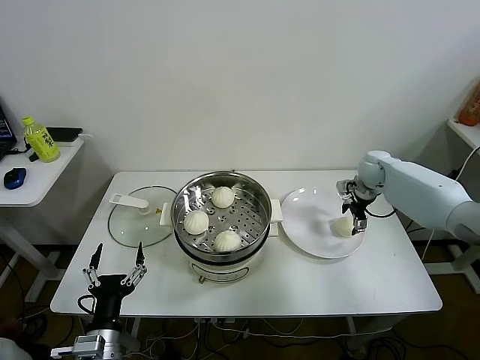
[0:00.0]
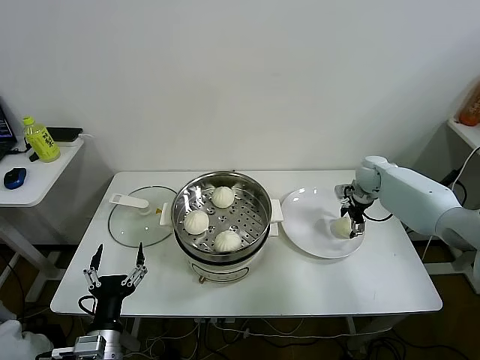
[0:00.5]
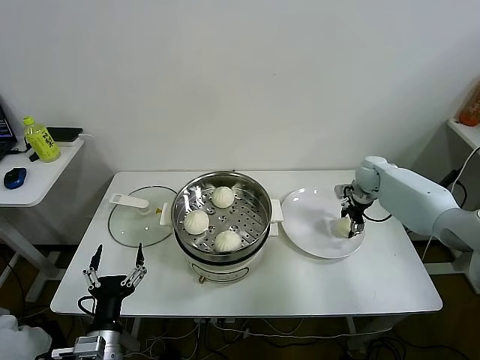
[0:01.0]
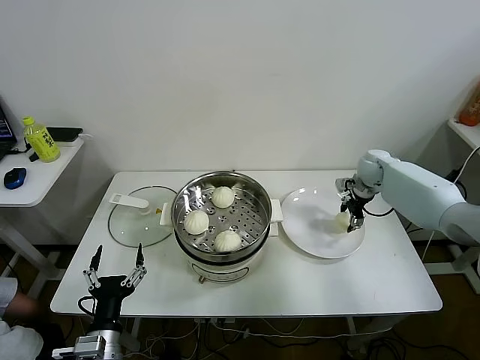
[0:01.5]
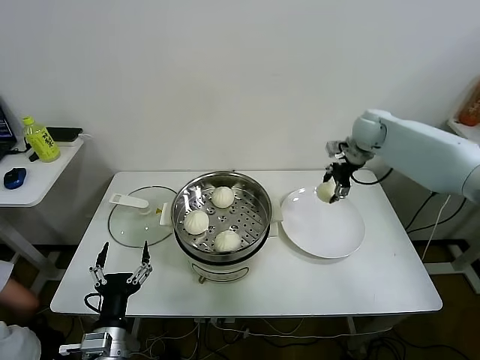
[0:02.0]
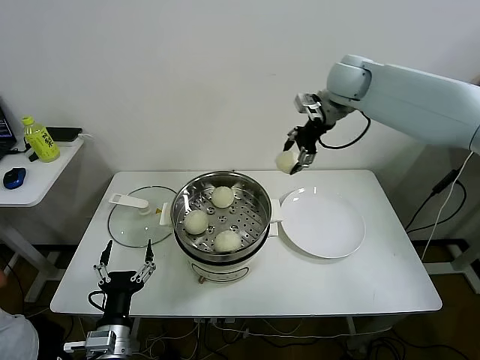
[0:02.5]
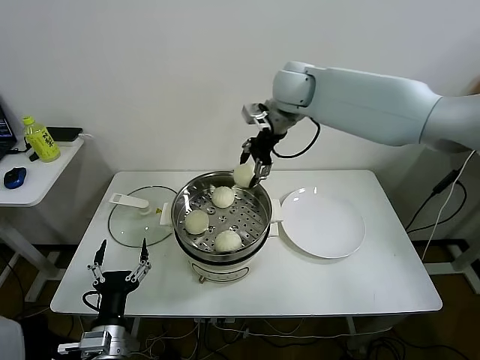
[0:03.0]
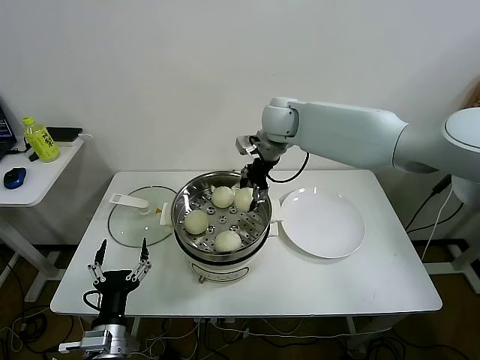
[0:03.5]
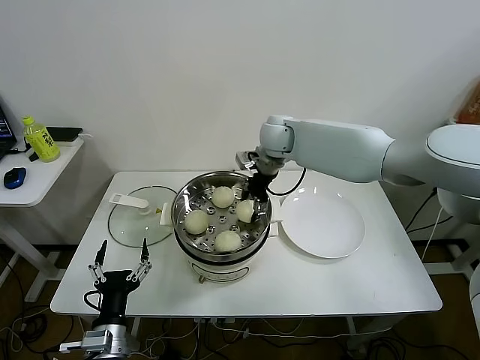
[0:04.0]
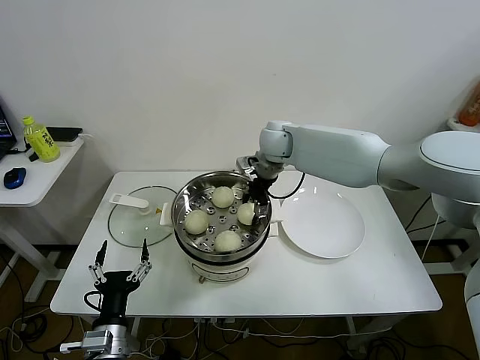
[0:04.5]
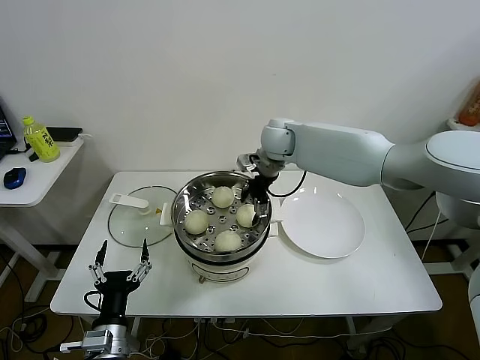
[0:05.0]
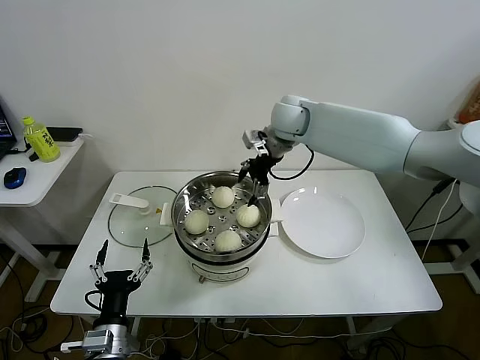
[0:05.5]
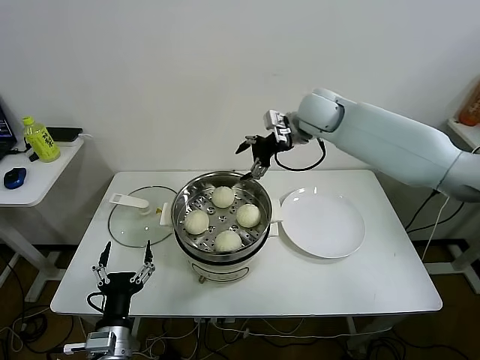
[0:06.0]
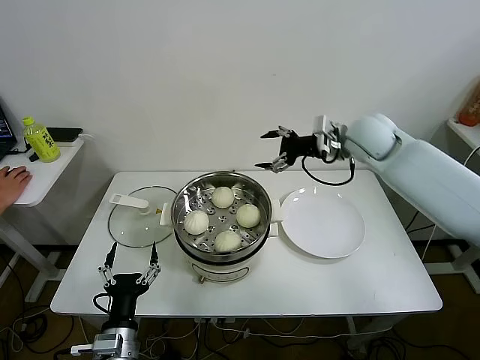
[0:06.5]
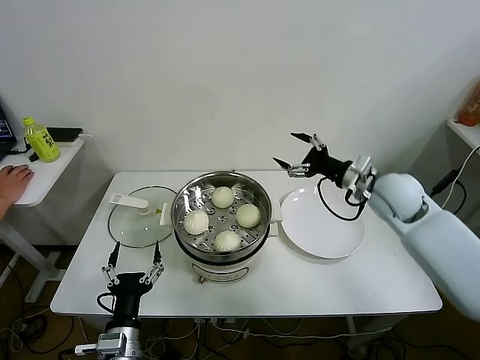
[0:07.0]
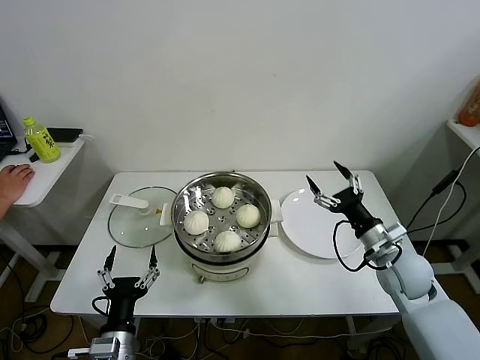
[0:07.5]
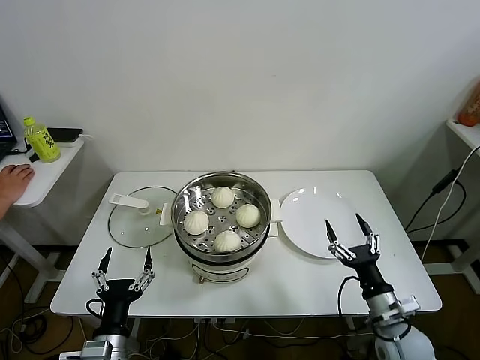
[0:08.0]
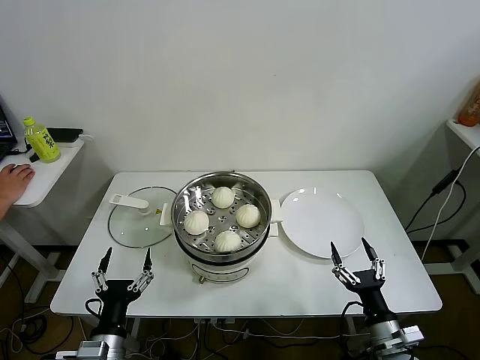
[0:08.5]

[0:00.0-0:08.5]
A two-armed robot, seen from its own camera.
Task of the whole recording: take steamed baozi put them in steamer.
Step, 0:01.5 to 0:05.0: Place the baozi on the steamer with right gripper.
0:00.0 to 0:02.0: The right gripper shifts about 10 cm upward, and closes.
0:02.0 to 0:04.0: The right gripper travels to the left by some 25 cm.
0:04.0 to 0:06.5: The right gripper heads to the right, covering some 15 cm, and opens.
0:06.5 to 0:08.5: The right gripper heads backward and downward, covering about 50 cm.

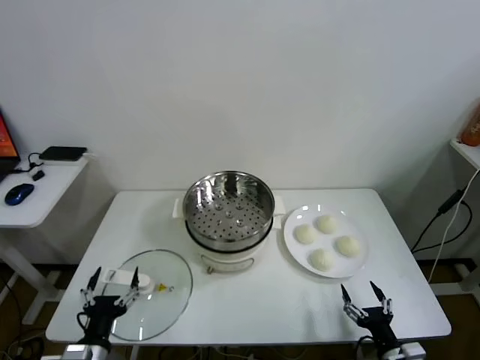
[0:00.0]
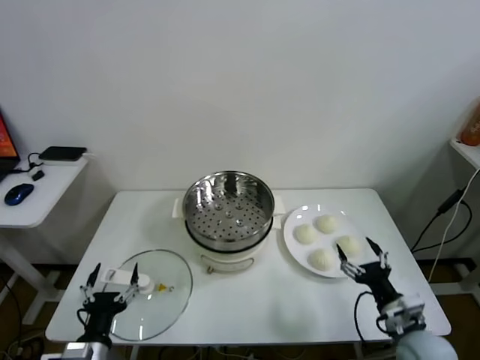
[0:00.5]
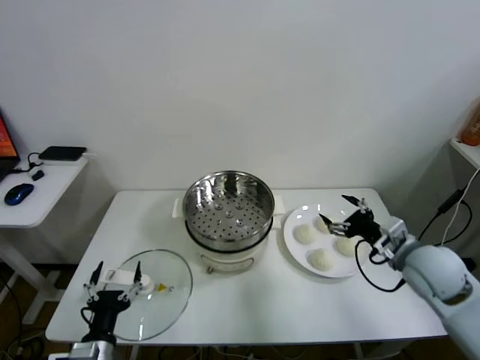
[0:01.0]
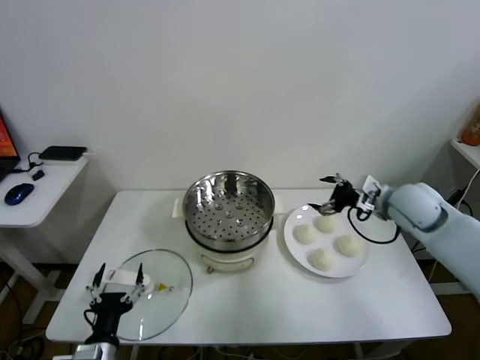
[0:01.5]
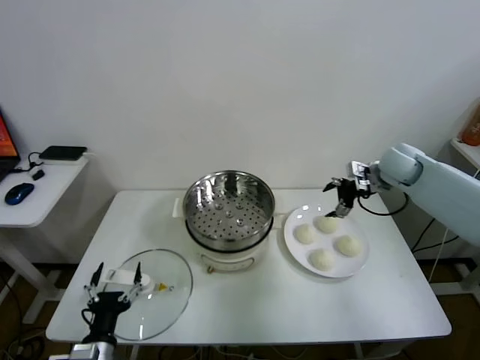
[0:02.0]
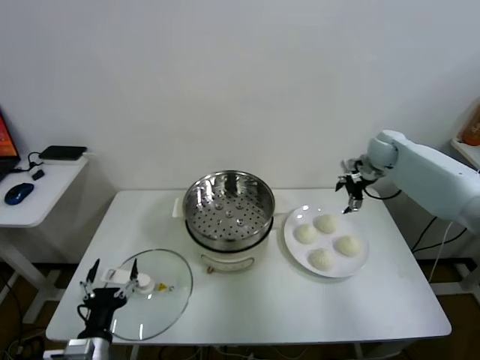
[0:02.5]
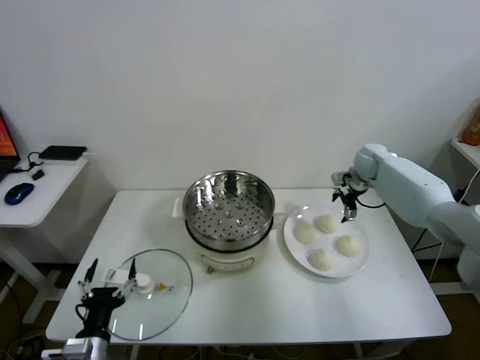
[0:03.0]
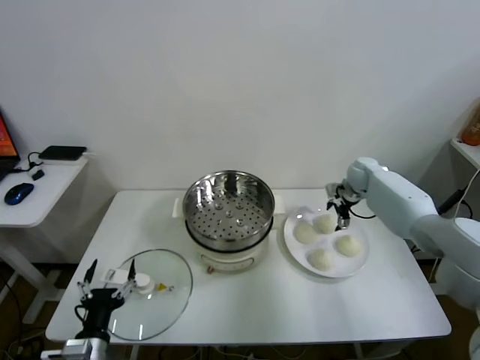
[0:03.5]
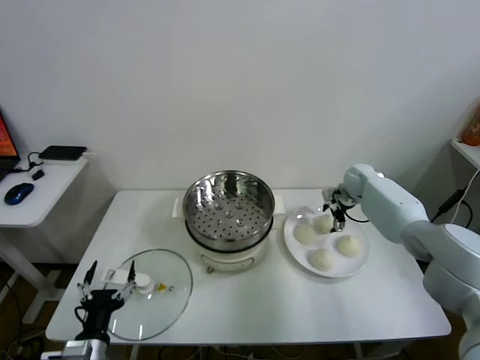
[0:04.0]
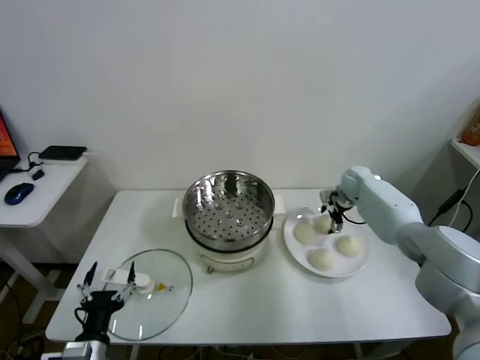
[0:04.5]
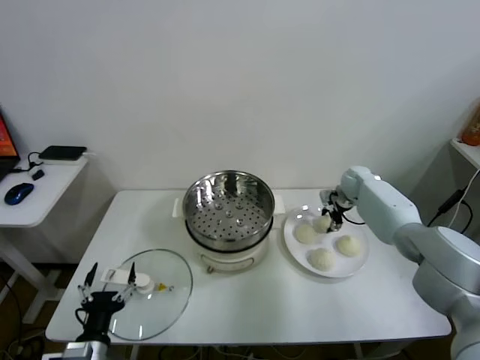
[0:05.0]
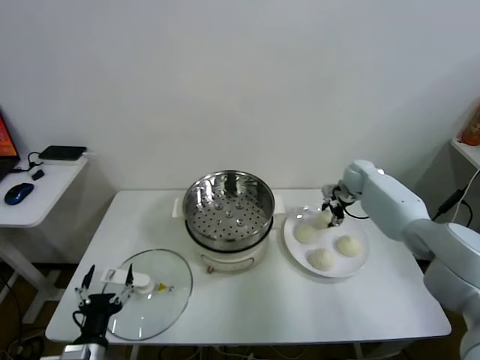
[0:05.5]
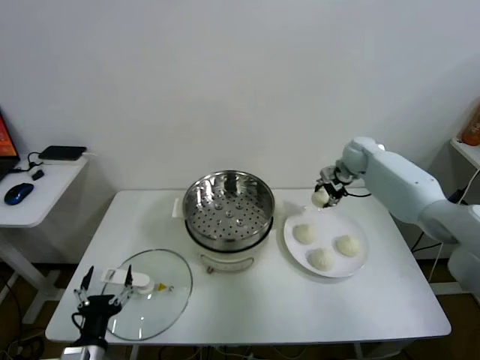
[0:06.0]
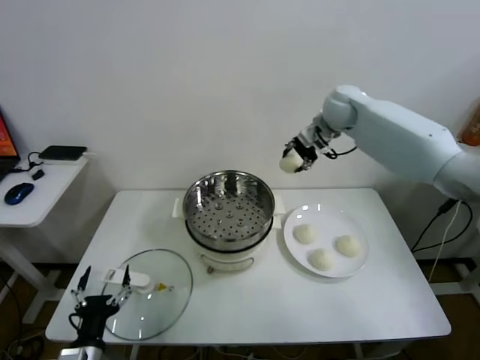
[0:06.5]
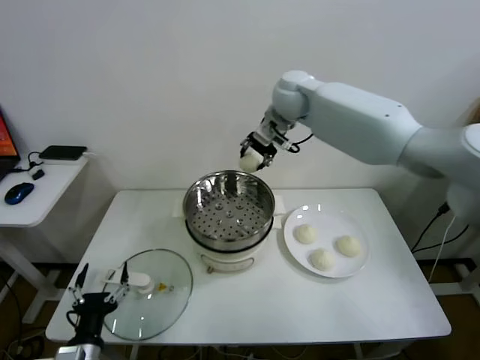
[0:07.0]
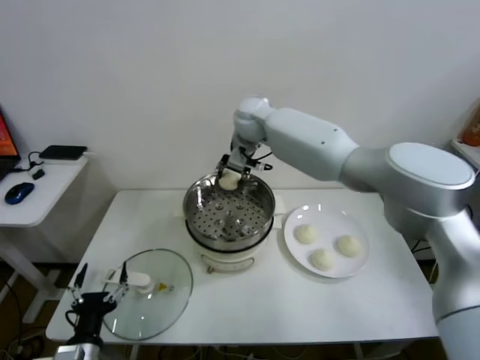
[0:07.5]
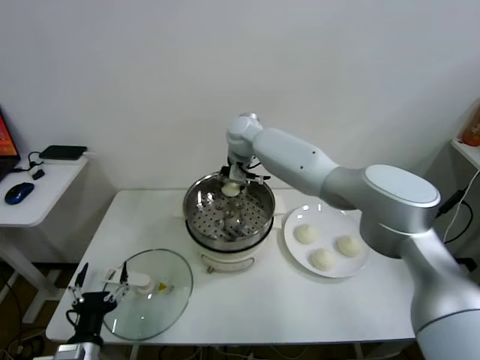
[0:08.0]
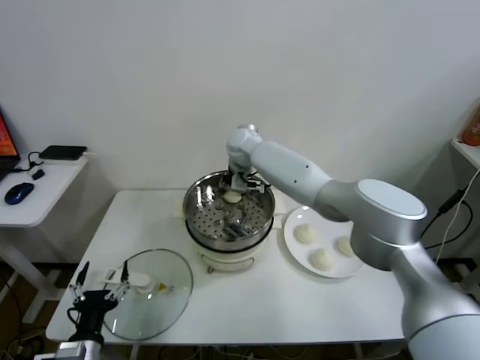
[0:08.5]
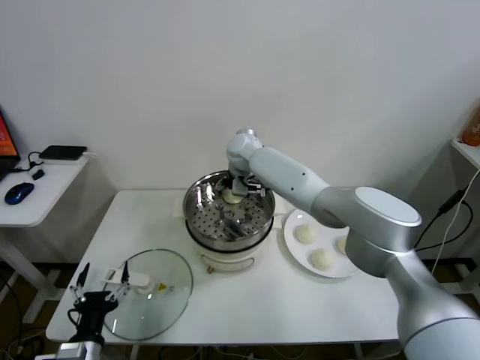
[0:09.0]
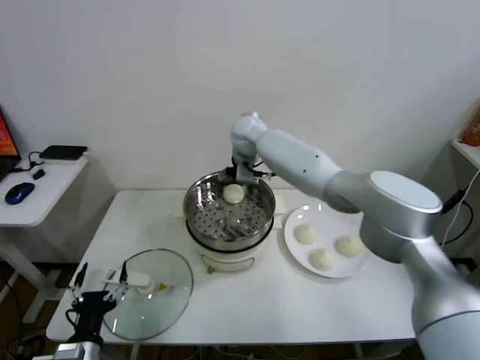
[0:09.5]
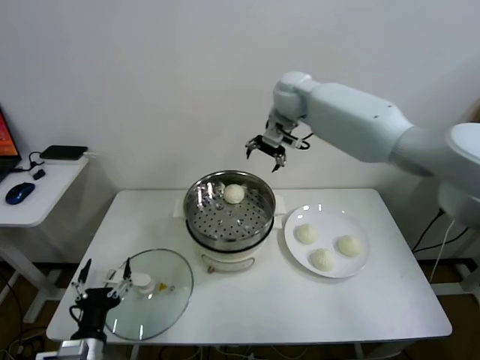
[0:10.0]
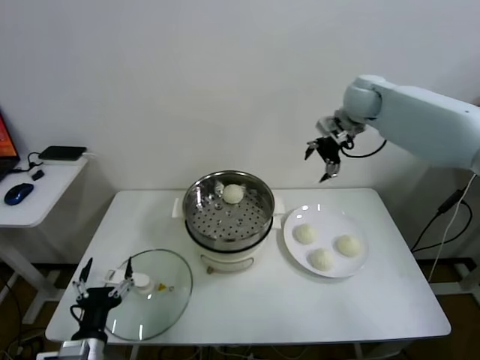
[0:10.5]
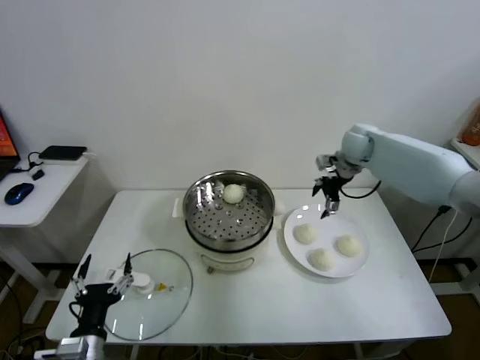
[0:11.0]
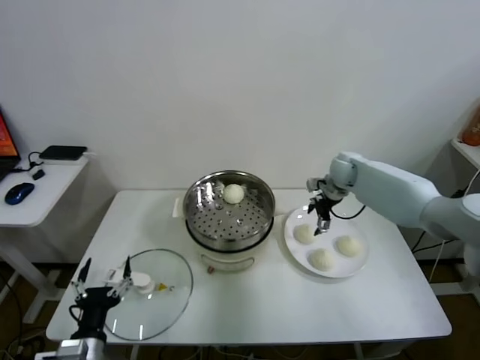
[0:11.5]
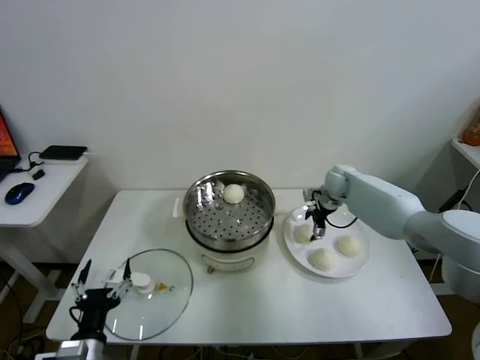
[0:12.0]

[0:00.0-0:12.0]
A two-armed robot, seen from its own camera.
Task of the whole recording: take steamed baozi put them in steamer.
Step, 0:00.0 to 0:05.0: Grasp the baozi in the plate with right gripper.
Step, 0:05.5 to 0:09.0: Place the baozi on the steamer with right gripper.
0:02.0 to 0:04.0: The right gripper is displaced downward and forward by some 15 cm.
0:04.0 to 0:06.0: The right gripper goes some 10 cm upward, and closes its fingers.
0:06.0 to 0:08.0: The right gripper goes approximately 30 cm to the left.
0:08.0 to 0:10.0: The right gripper heads to the right and upward, covering approximately 15 cm, and opens its fingers.
0:10.0 to 0:12.0: The right gripper is displaced downward and to the right by some 30 cm.

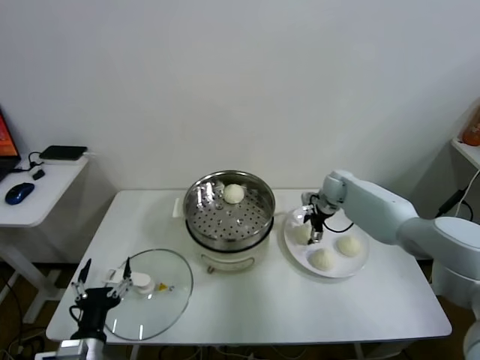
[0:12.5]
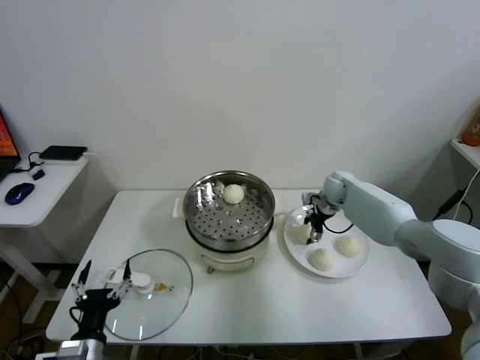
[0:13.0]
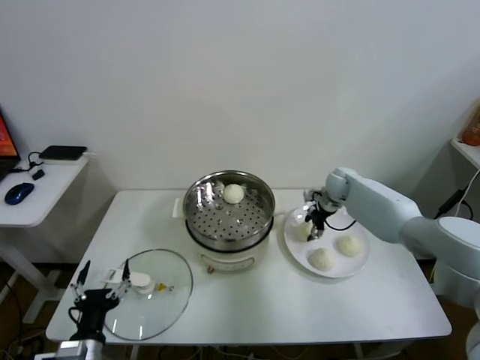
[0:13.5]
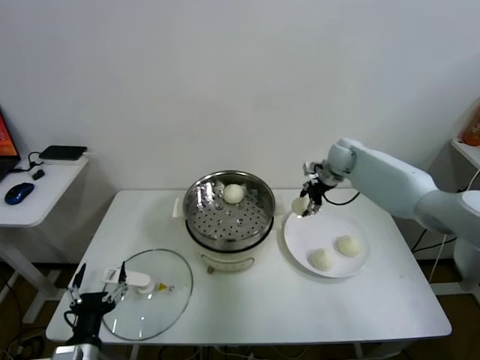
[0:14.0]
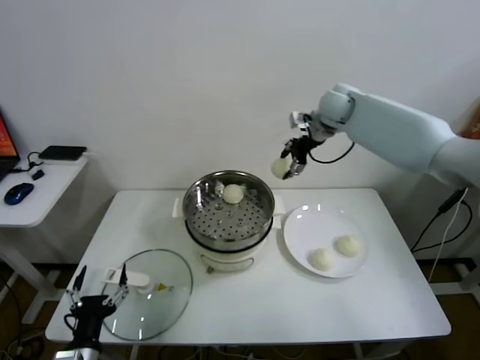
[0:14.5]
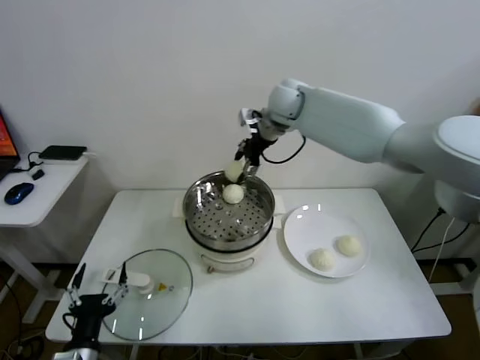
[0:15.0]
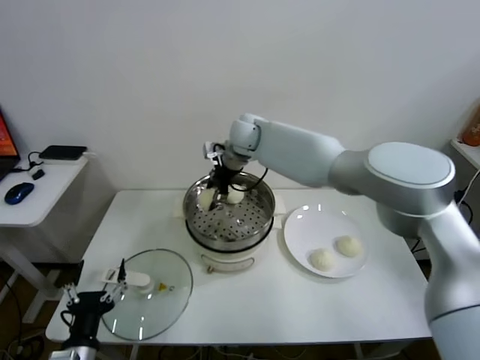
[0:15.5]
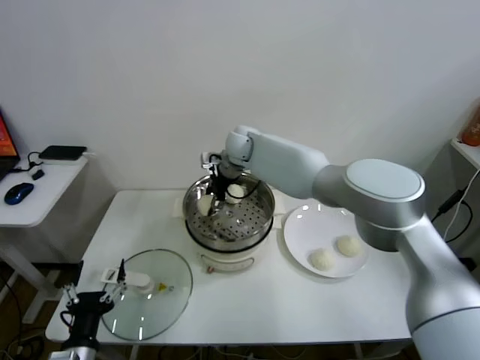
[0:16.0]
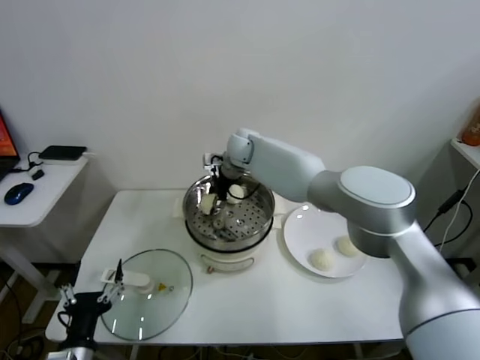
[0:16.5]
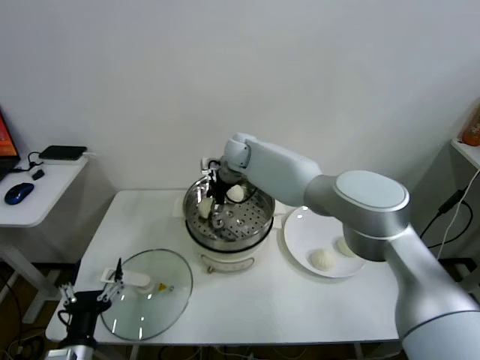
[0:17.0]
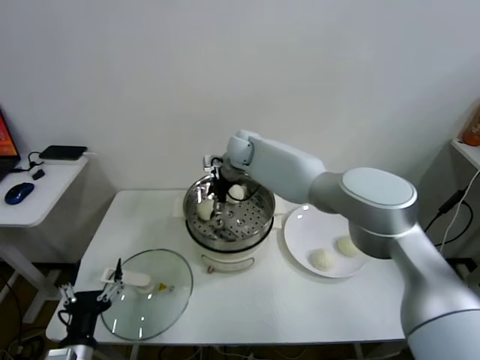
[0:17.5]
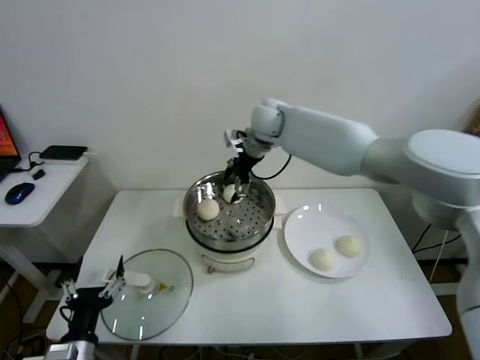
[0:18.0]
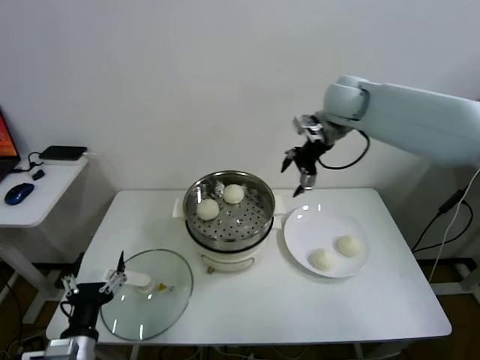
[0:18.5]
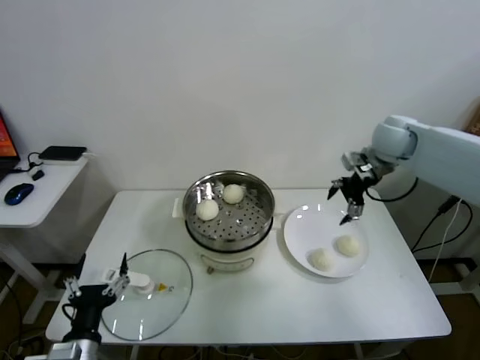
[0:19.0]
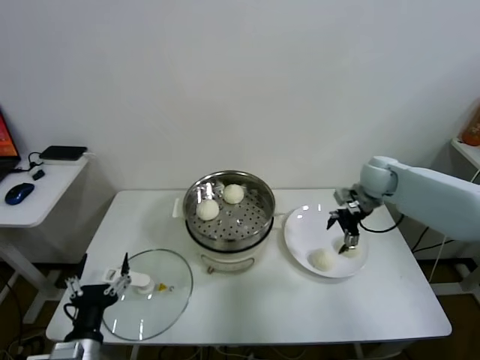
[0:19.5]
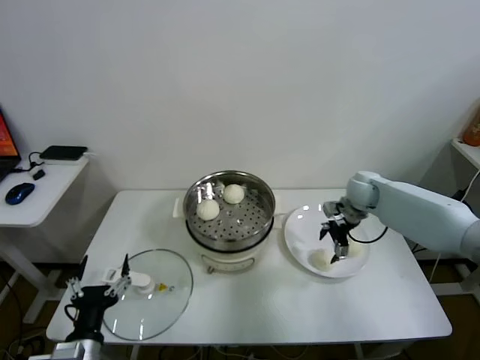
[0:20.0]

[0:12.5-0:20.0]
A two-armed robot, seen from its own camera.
Task of the whole recording: take steamed baozi put them in steamer.
Step, 0:13.5 to 0:17.5: Place the baozi on the steamer with right gripper.
0:12.5 to 0:14.5: The right gripper moves upward, about 25 cm, and closes up.
0:14.5 to 0:16.5: The right gripper shifts about 25 cm to the left and downward.
0:16.5 to 0:18.0: The right gripper goes about 10 cm upward and to the right, and opens.
0:18.0 to 0:20.0: The right gripper is displaced to the right and downward by about 30 cm.
